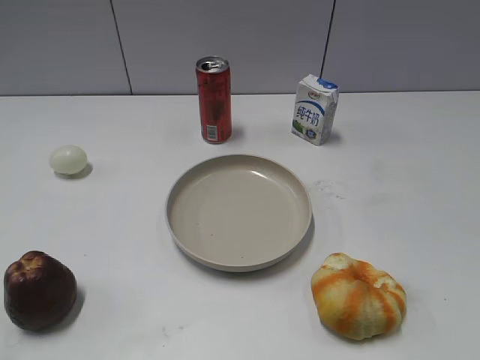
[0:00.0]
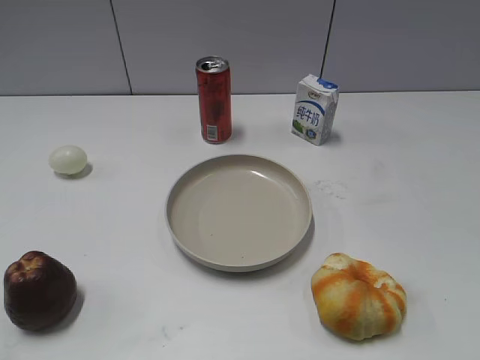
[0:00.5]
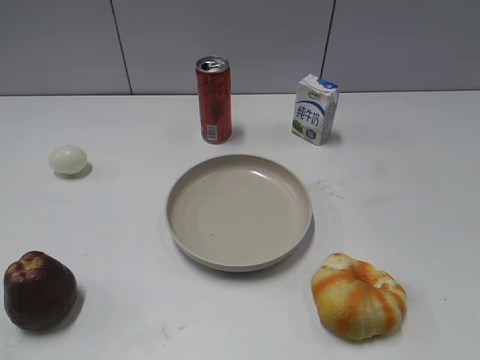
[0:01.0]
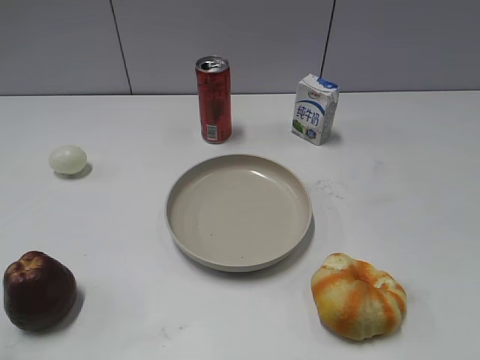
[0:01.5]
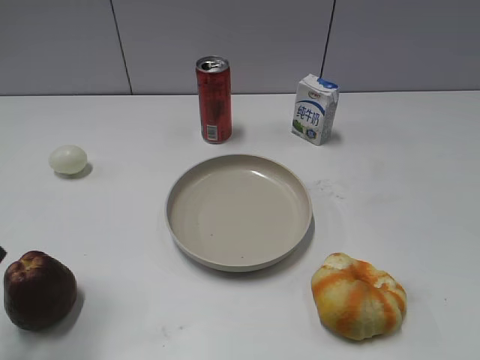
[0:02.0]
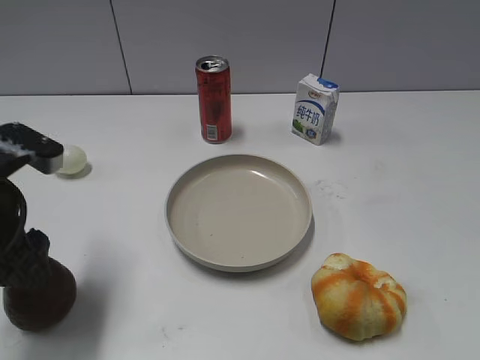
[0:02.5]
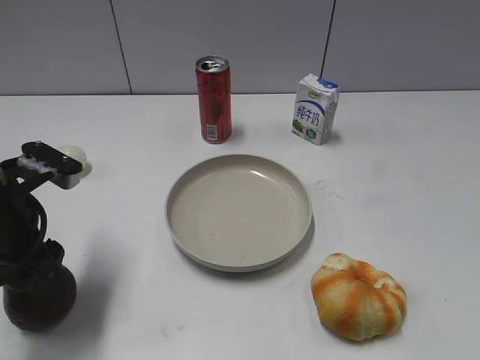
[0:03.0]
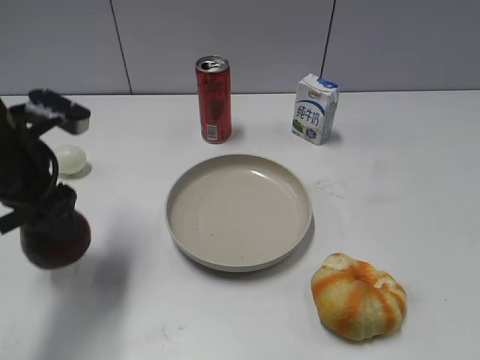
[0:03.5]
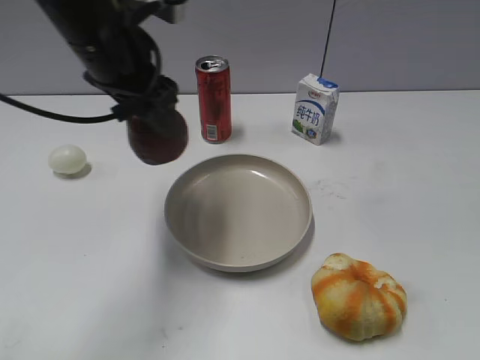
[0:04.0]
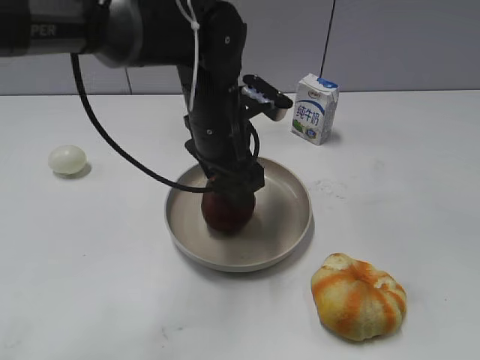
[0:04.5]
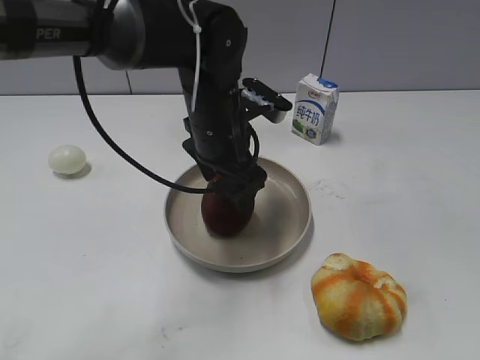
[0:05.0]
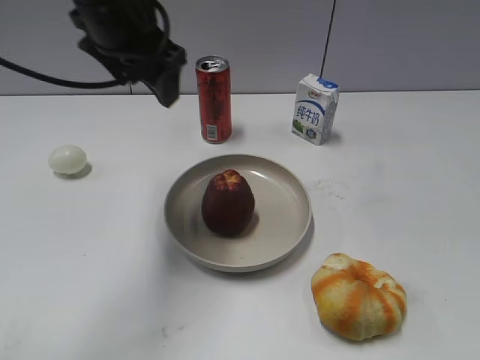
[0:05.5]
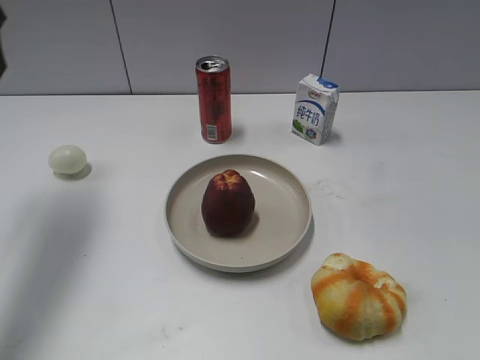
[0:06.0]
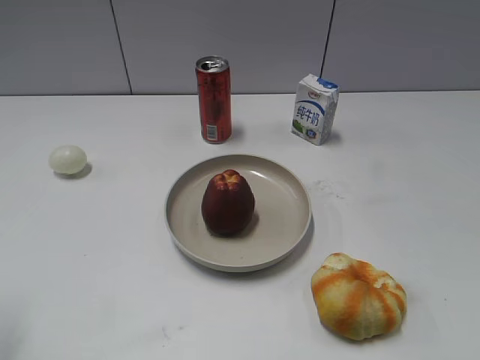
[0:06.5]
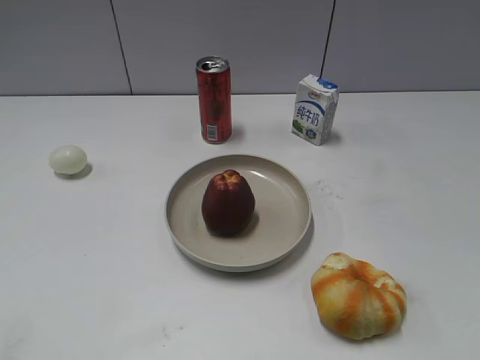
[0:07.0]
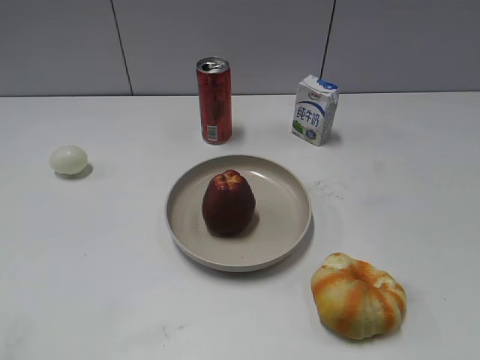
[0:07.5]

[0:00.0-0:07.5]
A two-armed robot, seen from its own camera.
Step, 0:02.0 to 0:03.0: Grasp the apple with left gripper.
Step, 0:03.5 to 0:05.0: Place the apple on the plate with left gripper.
0:02.0 to 0:04.0: The left gripper shifts some 25 cm to the right and forward.
0:04.0 to 0:05.5: The left gripper shifts approximately 10 cm to the left and upward, and opens its fingers.
0:05.5 to 0:07.5: The left gripper heads backward and to the left, covering roughly 40 cm.
